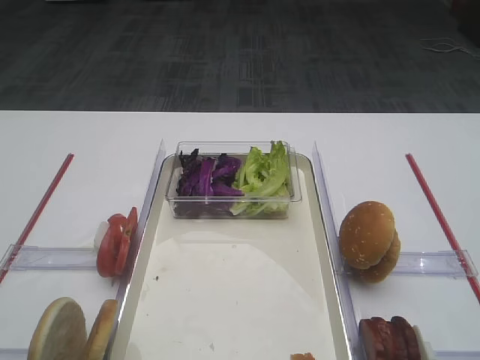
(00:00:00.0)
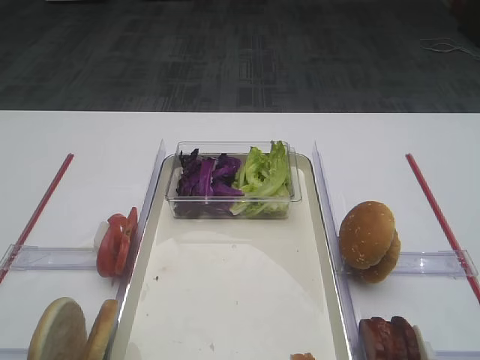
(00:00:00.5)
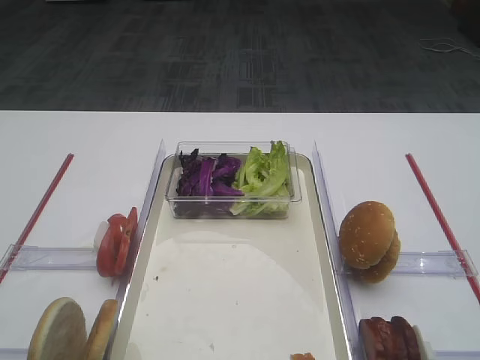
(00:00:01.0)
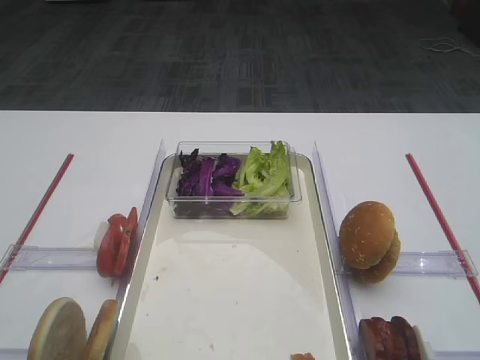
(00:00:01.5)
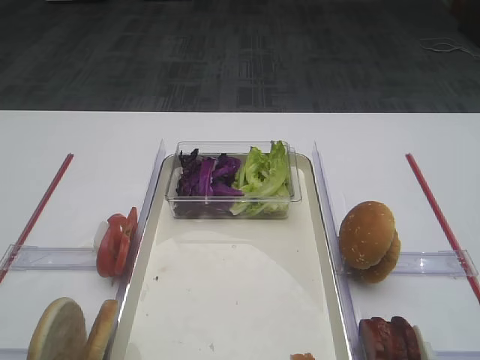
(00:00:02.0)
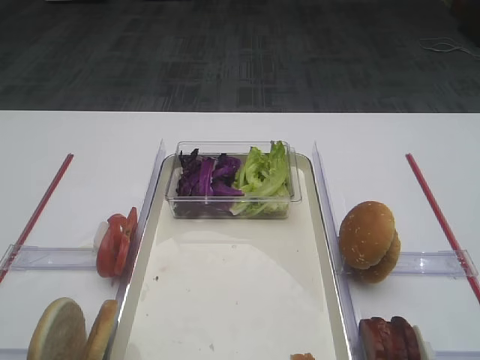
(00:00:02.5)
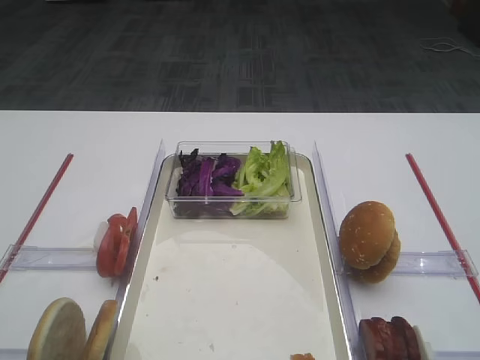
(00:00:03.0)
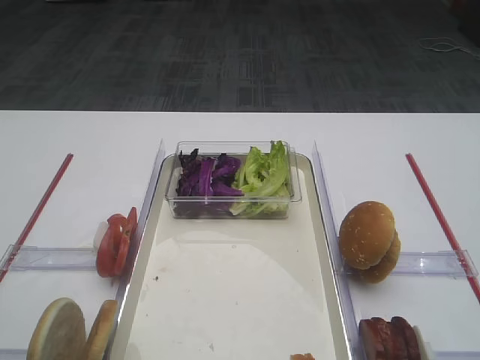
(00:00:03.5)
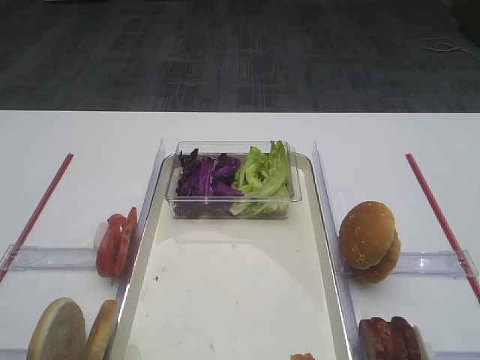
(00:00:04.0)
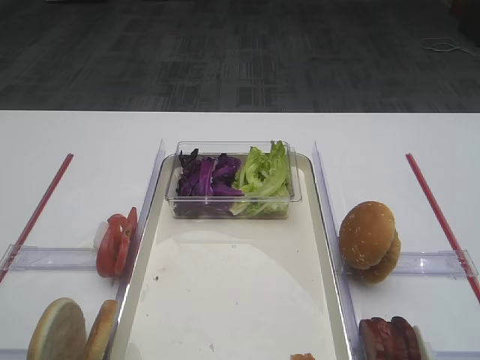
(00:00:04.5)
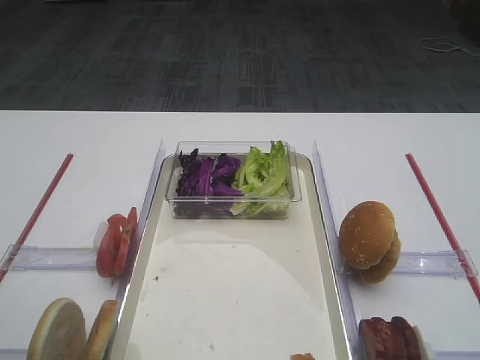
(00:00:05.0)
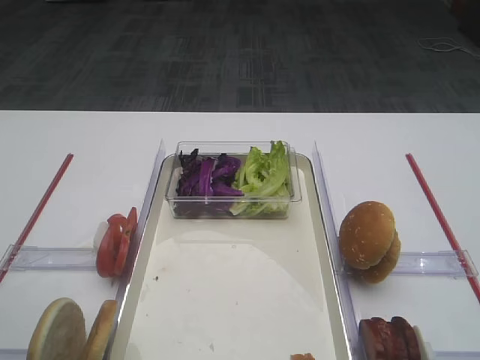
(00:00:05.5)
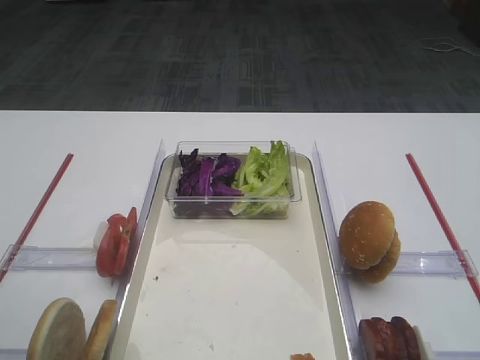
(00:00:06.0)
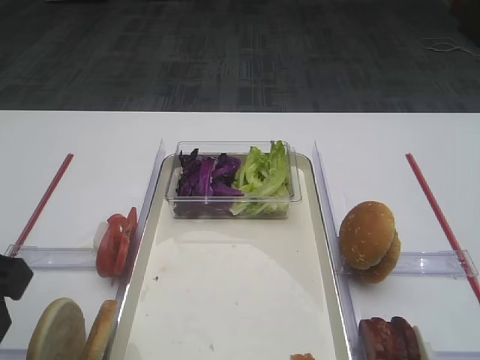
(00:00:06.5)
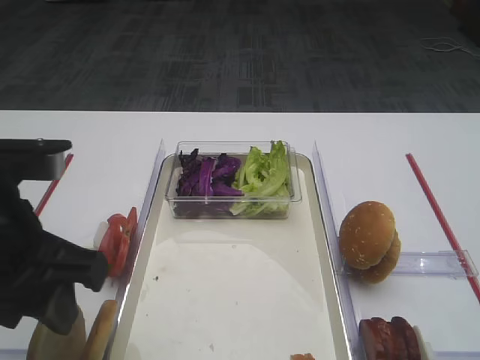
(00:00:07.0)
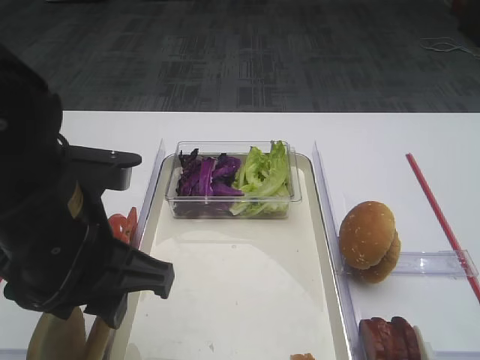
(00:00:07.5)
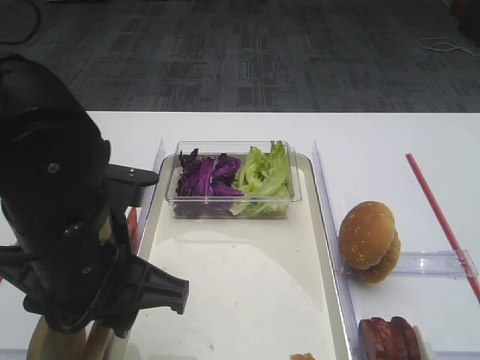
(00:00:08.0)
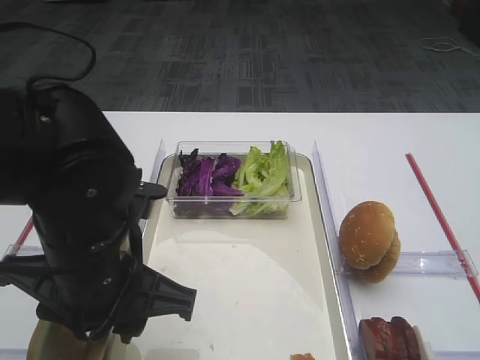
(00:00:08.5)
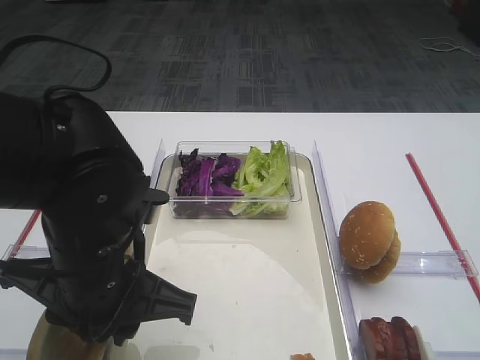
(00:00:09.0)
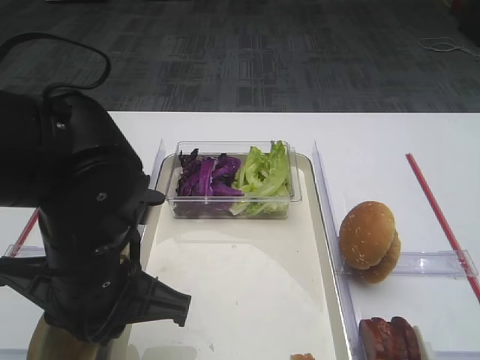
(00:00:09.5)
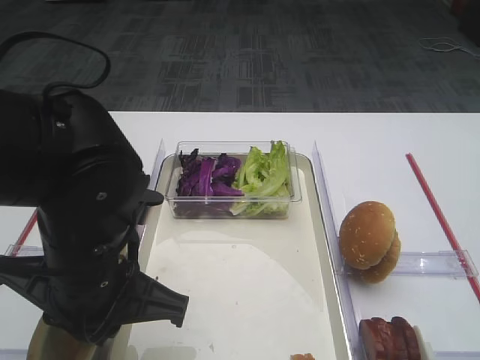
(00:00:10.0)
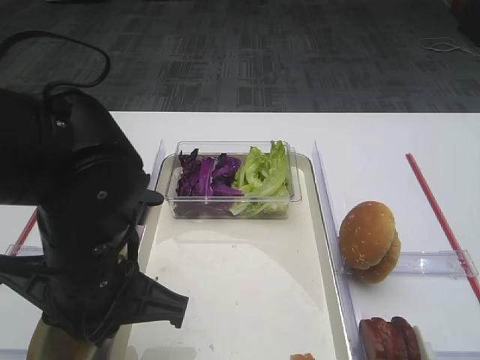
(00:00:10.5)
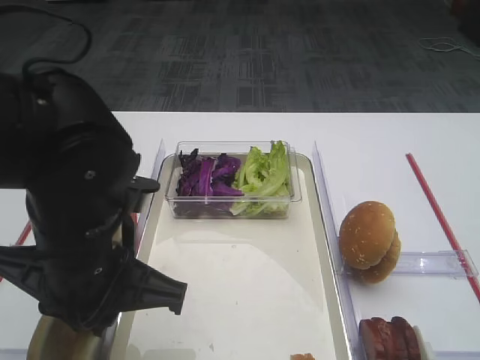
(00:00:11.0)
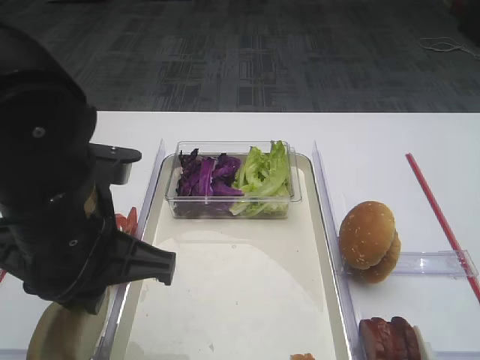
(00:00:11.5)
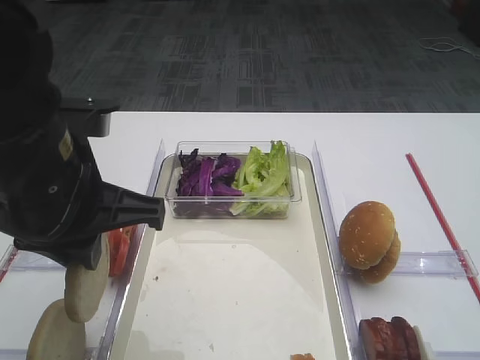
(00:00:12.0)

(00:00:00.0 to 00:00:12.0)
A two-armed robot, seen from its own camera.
Step, 00:00:00.0 - 00:00:11.5: Pick up the bread slice with the left gripper.
00:00:06.0 - 00:00:08.0: The left gripper is displaced to the right by about 15 cm.
00:00:08.0 - 00:00:10.0: The left gripper closes its fingers.
00:00:10.0 - 00:00:12.0: The left gripper shifts about 5 cm upward.

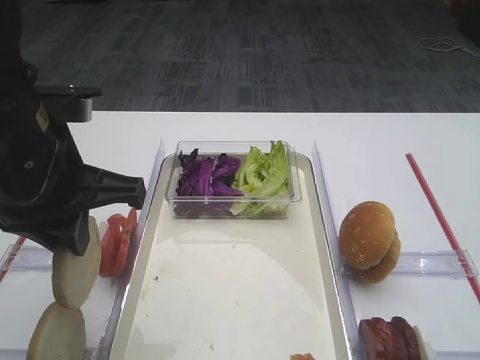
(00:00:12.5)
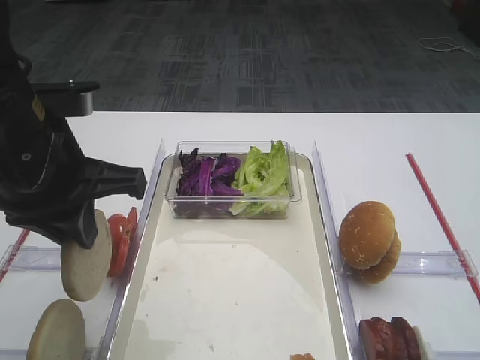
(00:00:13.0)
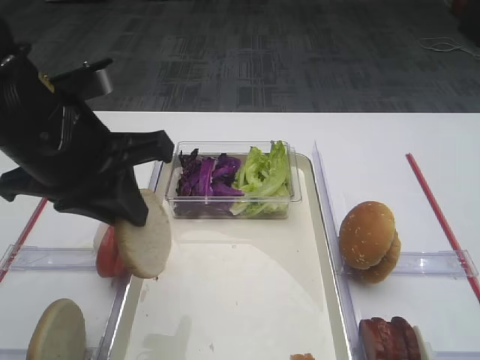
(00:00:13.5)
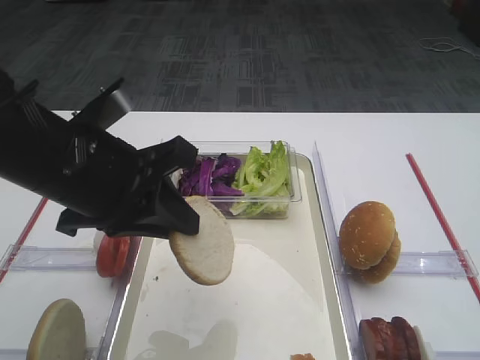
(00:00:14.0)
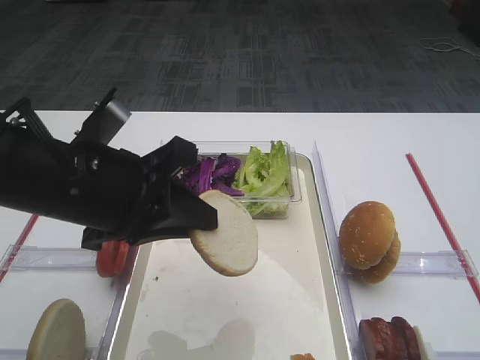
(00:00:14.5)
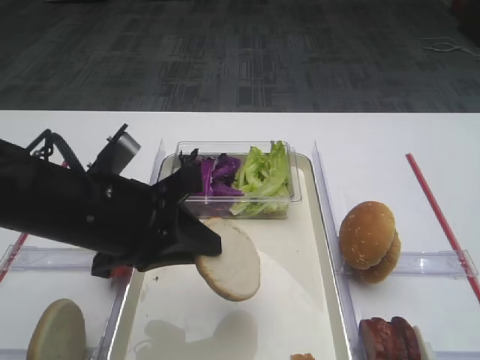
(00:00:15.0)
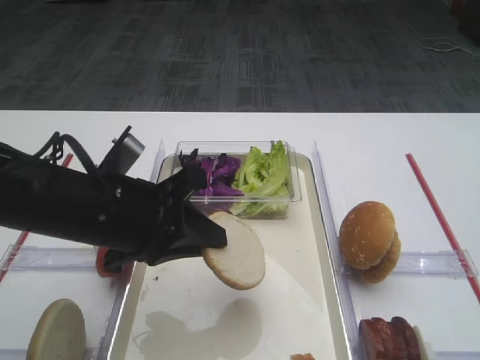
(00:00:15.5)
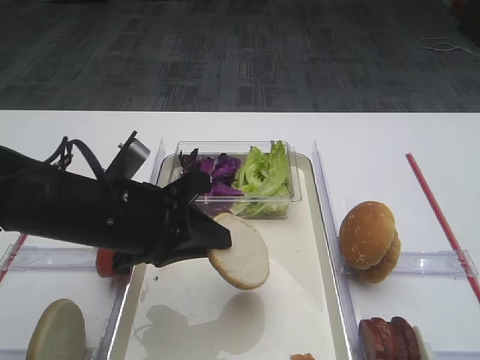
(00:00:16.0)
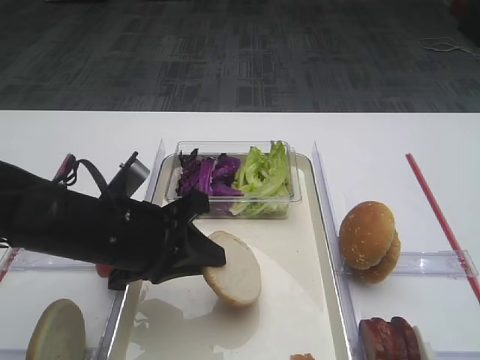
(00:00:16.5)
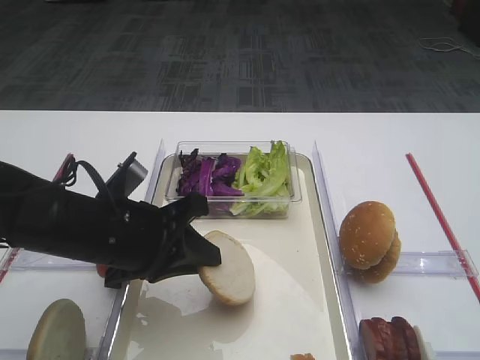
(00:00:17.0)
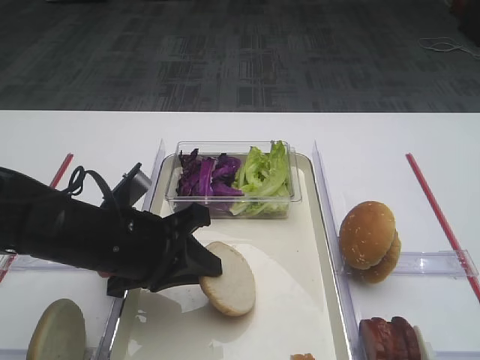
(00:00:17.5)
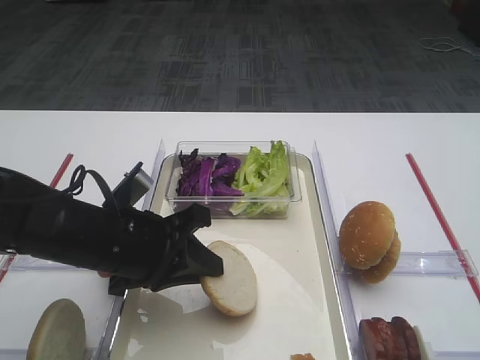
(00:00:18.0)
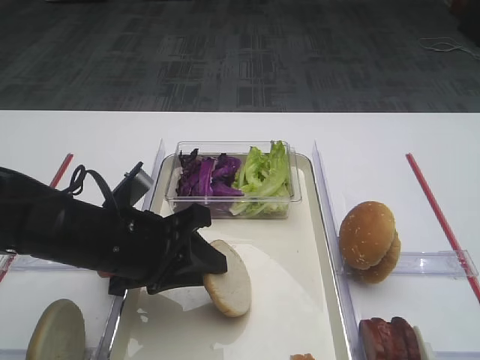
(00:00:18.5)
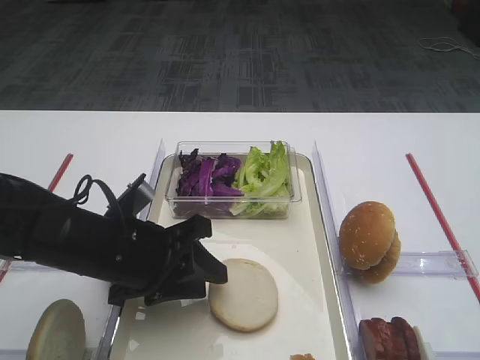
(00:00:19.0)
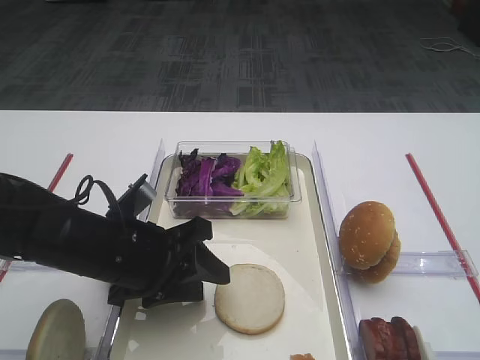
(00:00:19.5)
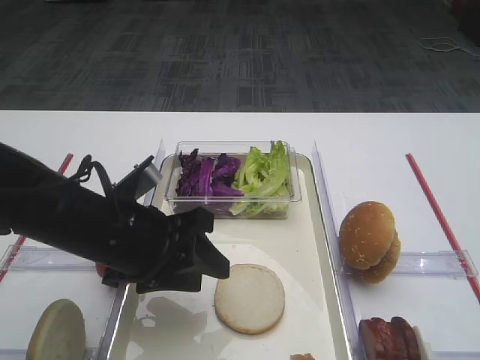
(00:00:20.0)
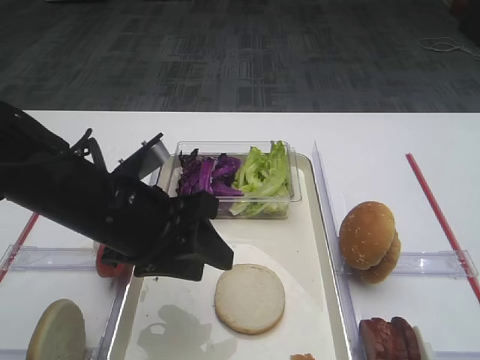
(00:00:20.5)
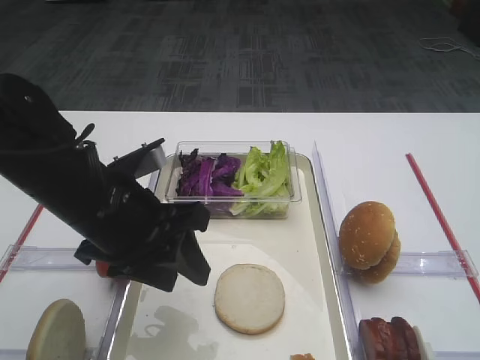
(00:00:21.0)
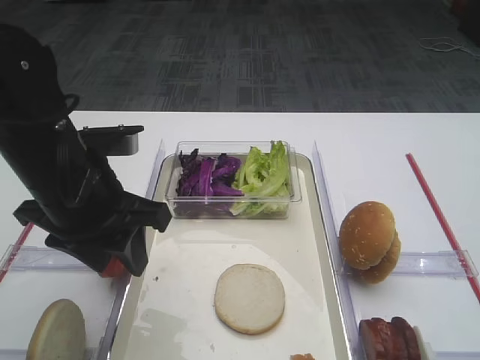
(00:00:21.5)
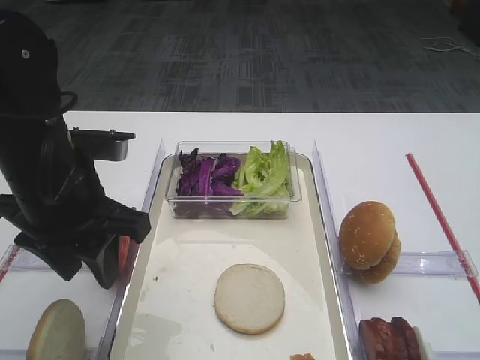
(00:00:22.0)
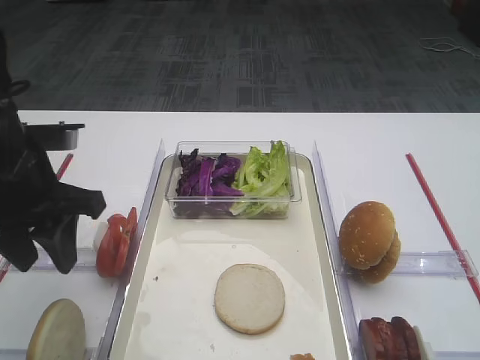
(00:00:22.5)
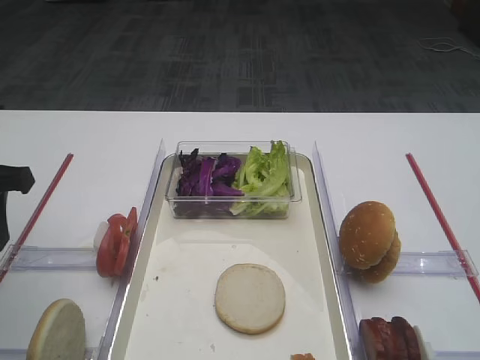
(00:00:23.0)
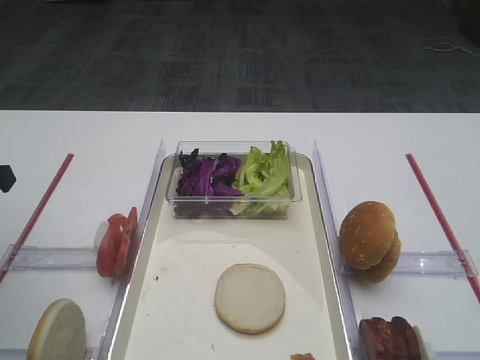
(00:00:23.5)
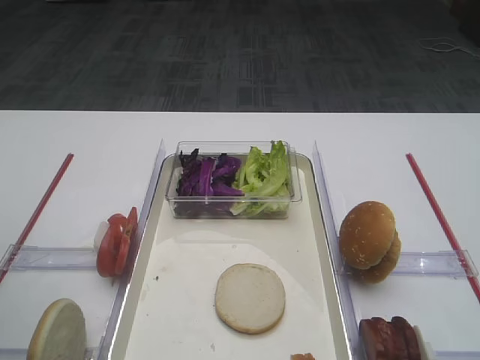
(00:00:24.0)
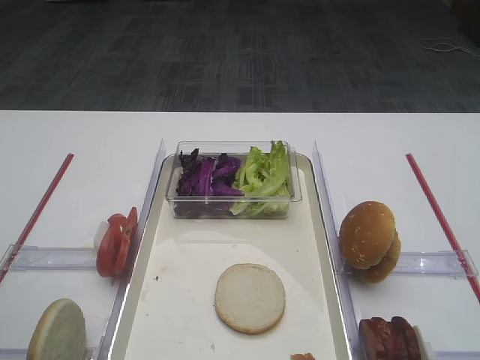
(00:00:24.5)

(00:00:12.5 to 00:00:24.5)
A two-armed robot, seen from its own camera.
Step, 00:00:12.5 - 00:00:20.0: Place the bread slice on the tray with the left gripper.
00:00:14.5 - 00:00:16.5: The left gripper goes about 10 cm downward.
00:00:16.5 - 00:00:18.5: The left gripper opens up.
00:00:18.5 - 00:00:20.5: The left gripper opens.
00:00:20.5 - 00:00:22.5: The left gripper heads to the left, covering approximately 10 cm.
00:00:22.5 - 00:00:24.5: The left gripper heads to the left, backward and upward, covering approximately 15 cm.

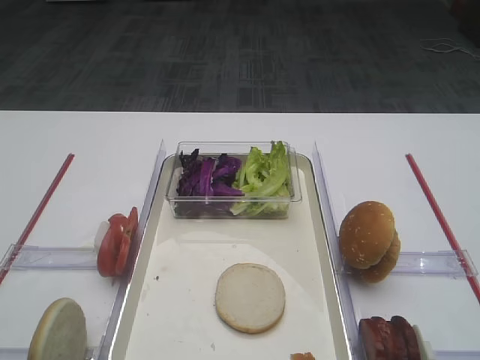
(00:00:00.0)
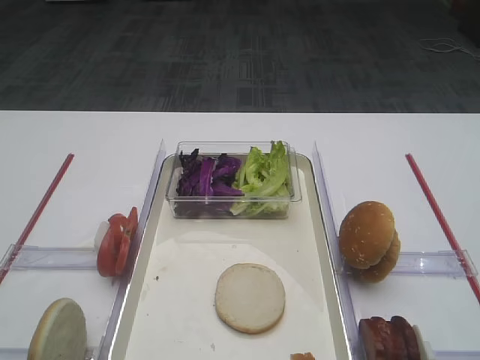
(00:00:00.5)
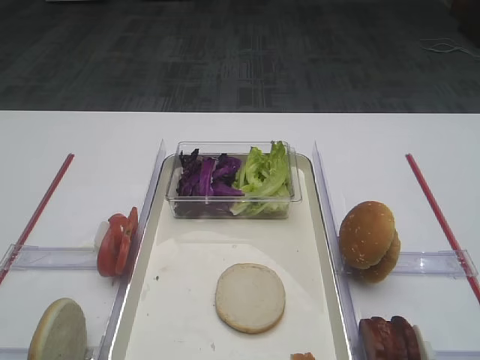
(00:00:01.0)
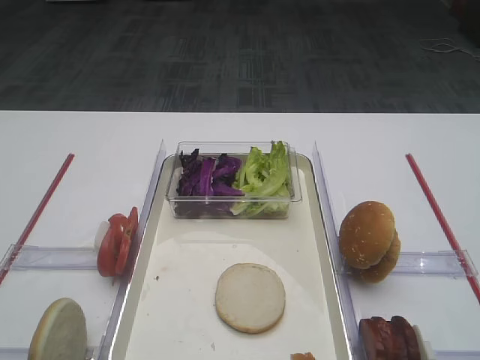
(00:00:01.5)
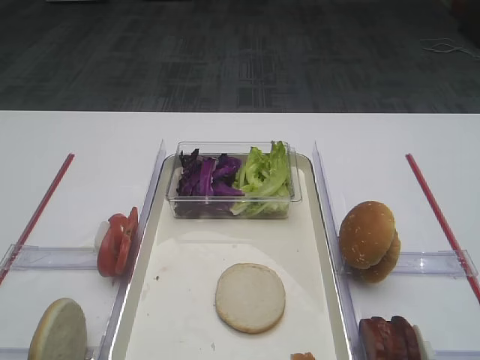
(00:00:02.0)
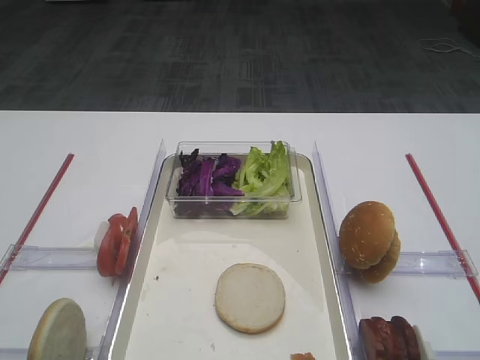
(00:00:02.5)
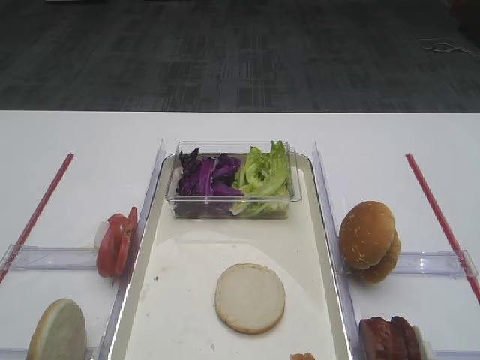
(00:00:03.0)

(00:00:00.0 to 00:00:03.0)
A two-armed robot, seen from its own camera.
00:00:01.5 - 00:00:03.0: The two grippers keep their place.
